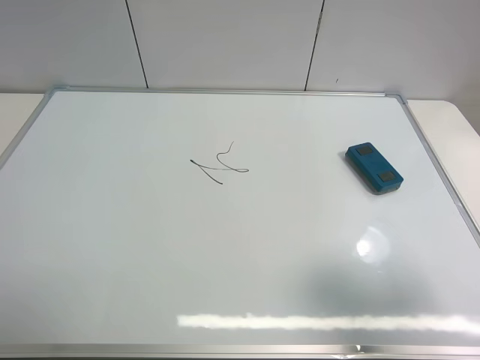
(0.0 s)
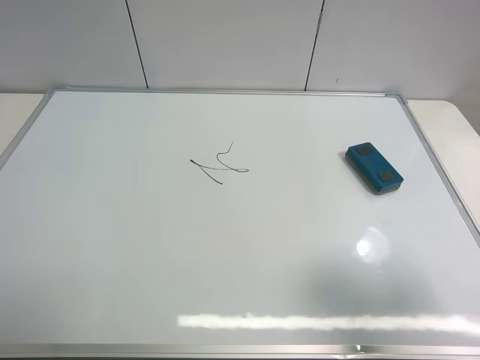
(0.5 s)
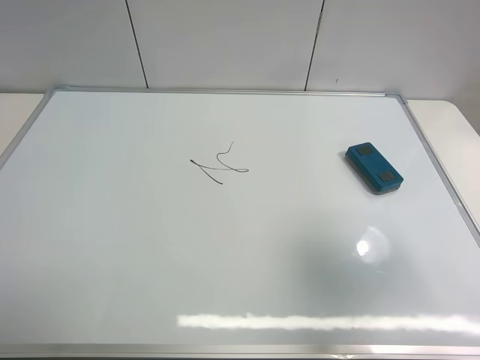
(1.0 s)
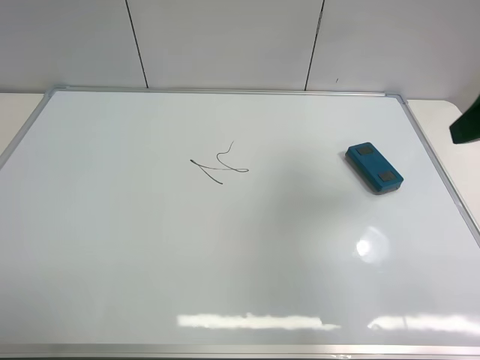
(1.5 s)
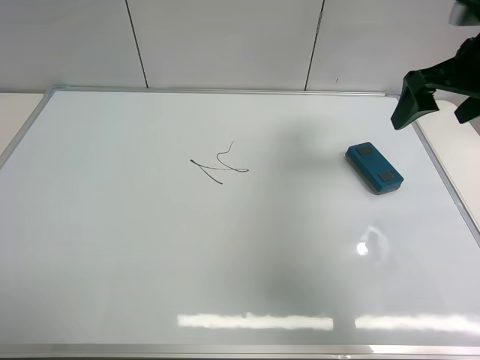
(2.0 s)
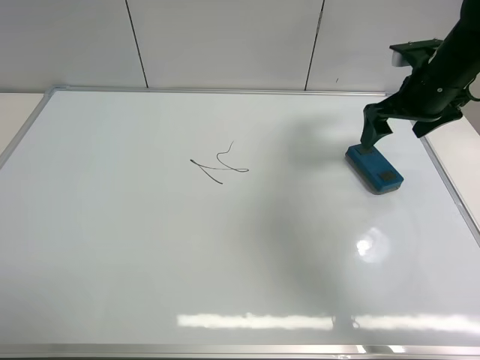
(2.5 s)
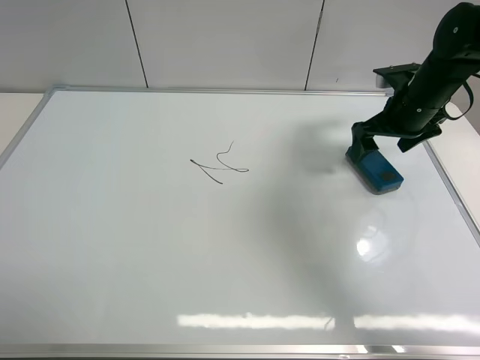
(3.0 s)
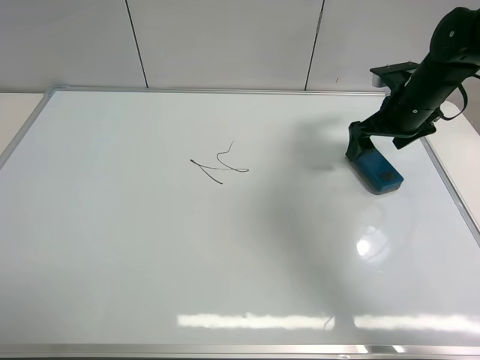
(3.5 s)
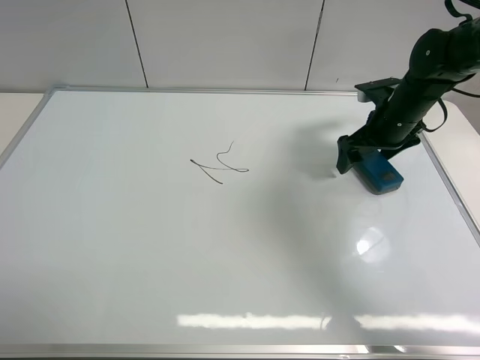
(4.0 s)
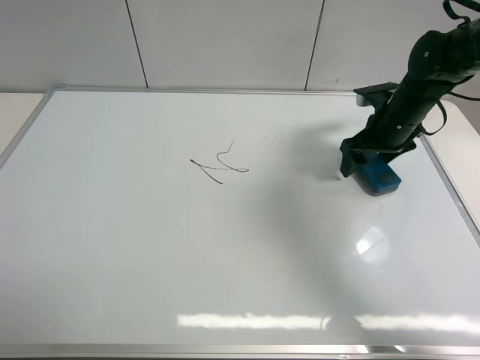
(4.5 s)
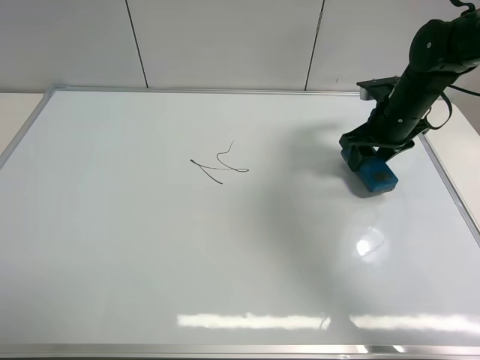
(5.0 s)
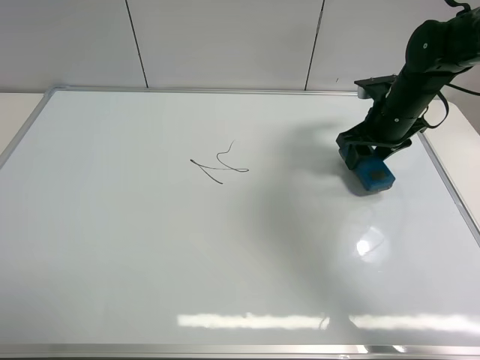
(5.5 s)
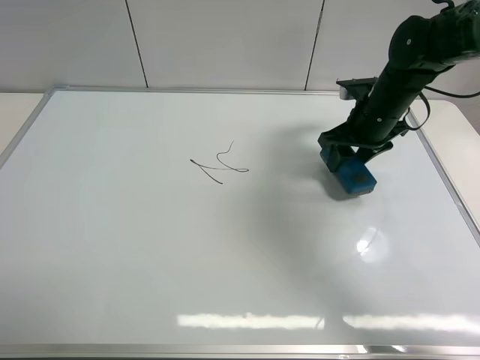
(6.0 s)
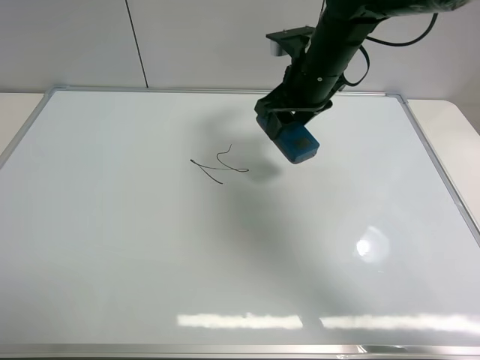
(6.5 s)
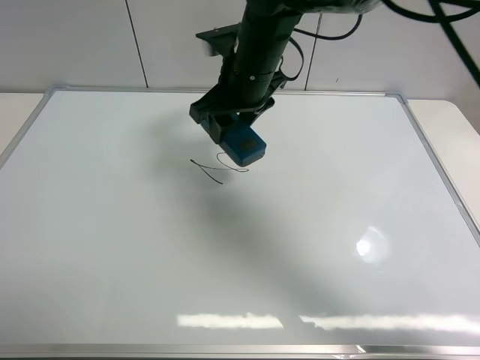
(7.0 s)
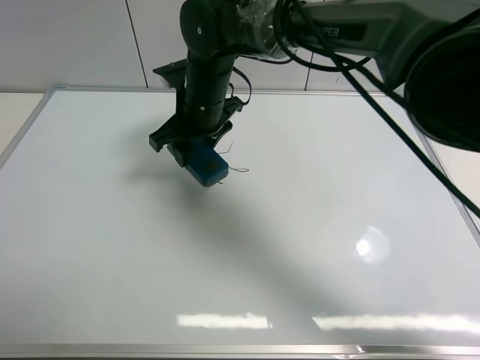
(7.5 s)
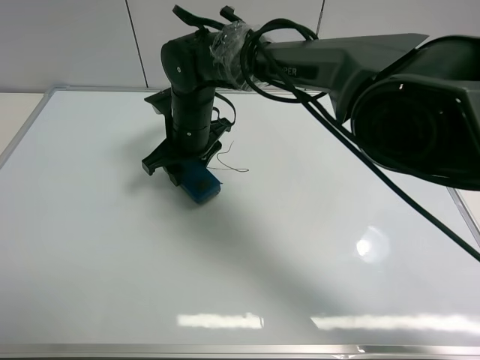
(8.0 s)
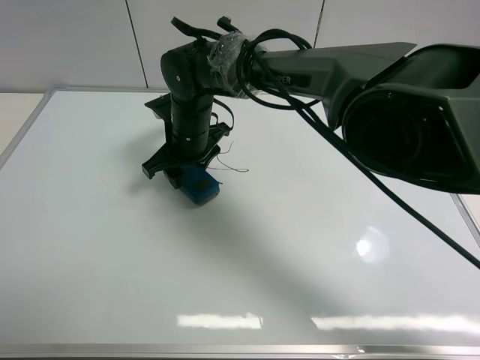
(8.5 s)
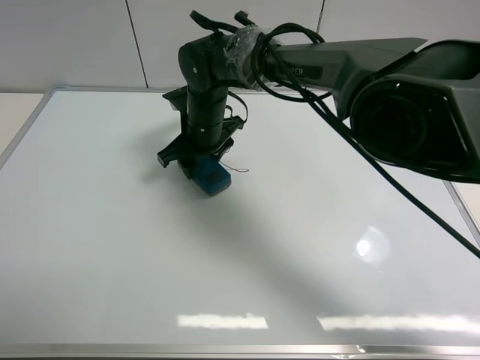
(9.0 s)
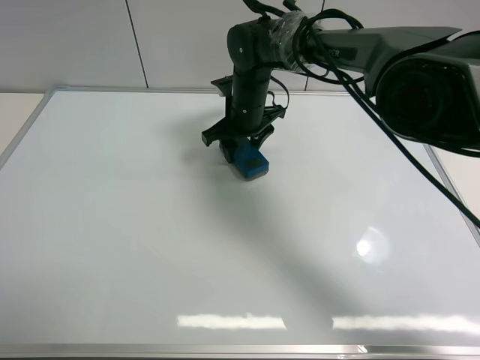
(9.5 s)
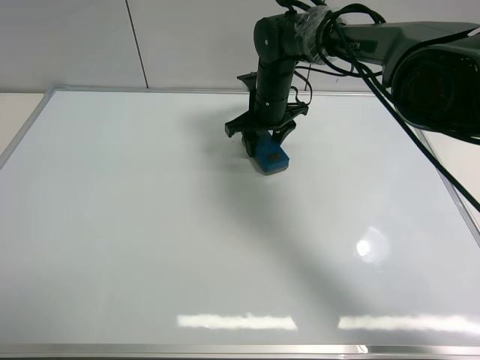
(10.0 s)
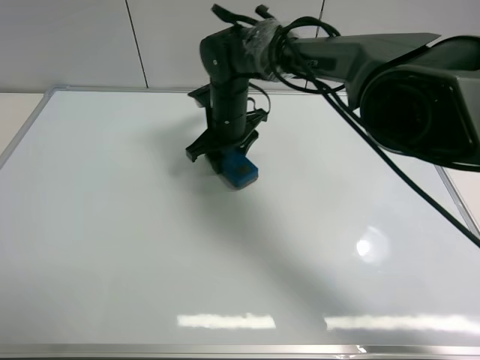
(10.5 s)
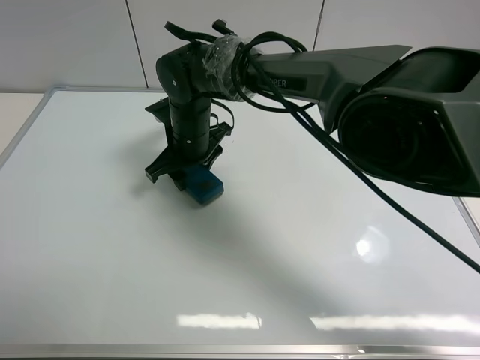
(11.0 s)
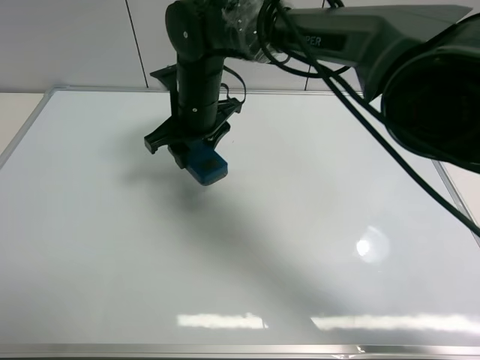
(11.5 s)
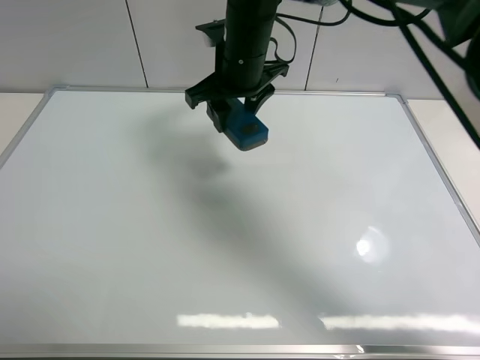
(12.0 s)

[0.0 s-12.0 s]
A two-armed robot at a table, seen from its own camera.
Task of the whole recording: use the right gripper to pick up the board eraser, wipe the notes on the whiteboard clean, and then put them back in place.
Step, 0.0 to 5.0 s: Pick up the board eraser with right gripper.
Step, 5.5 to 11.0 s: Wipe off the writing on the board with right gripper.
0.0 to 2.0 s: The right gripper moves forward, approximately 30 cm.
2.0 to 4.0 s: The right gripper shifts approximately 15 cm downward and forward.
4.0 to 6.0 s: The right gripper shifts by some 5 cm, and closes up.
6.0 to 8.0 s: The right gripper is displaced to the left by about 30 cm.
8.0 to 10.0 s: The right gripper moves to the right and forward, about 15 cm.
10.0 to 12.0 s: The right gripper moves upward, backward and to the left, about 15 cm.

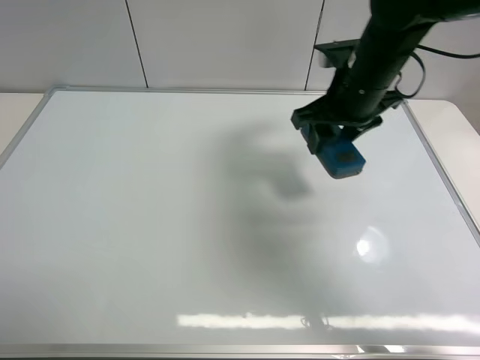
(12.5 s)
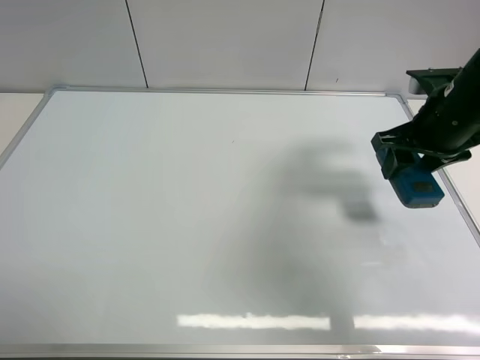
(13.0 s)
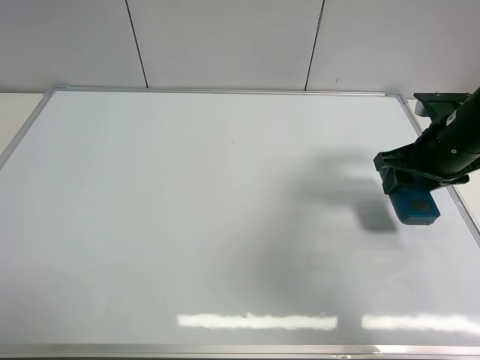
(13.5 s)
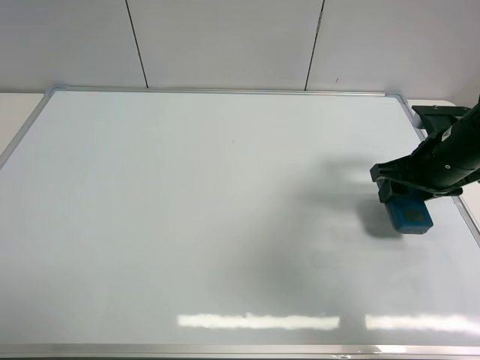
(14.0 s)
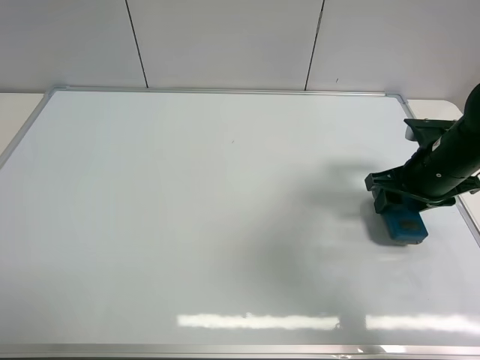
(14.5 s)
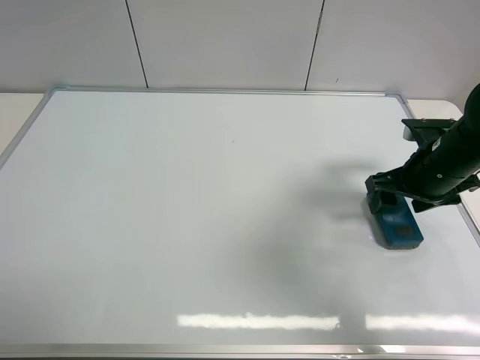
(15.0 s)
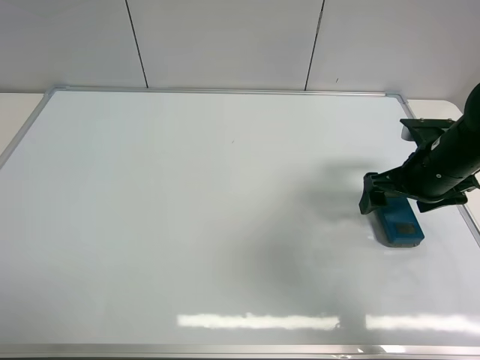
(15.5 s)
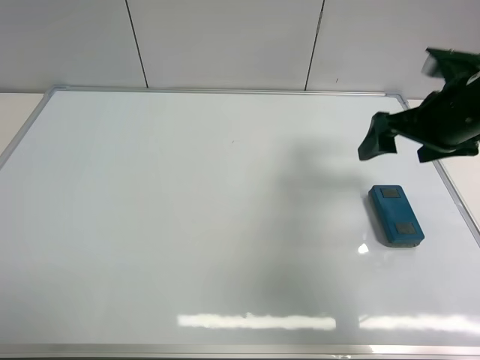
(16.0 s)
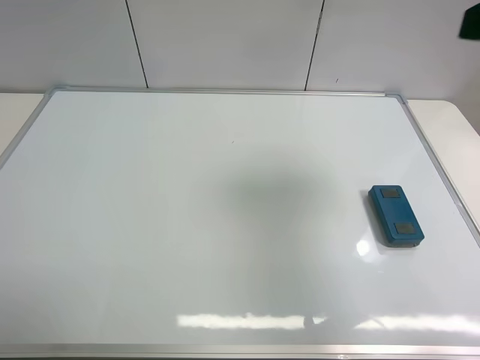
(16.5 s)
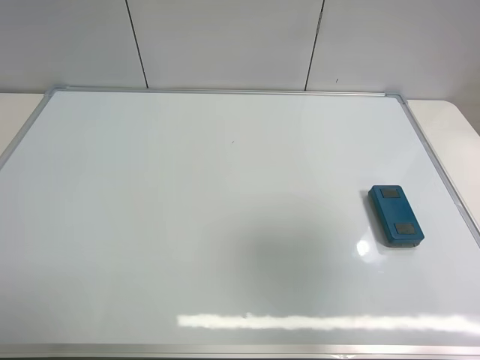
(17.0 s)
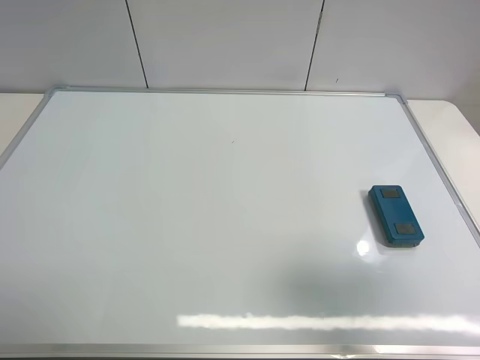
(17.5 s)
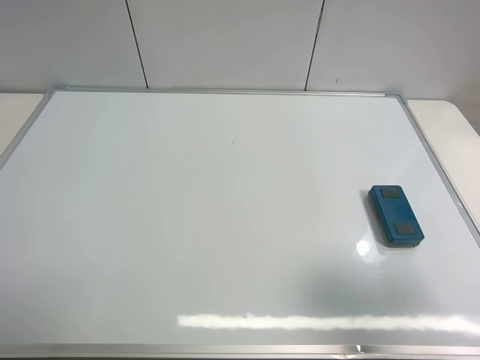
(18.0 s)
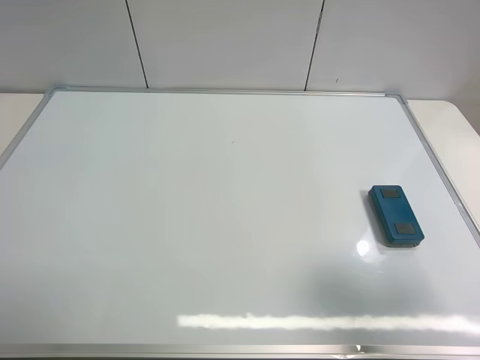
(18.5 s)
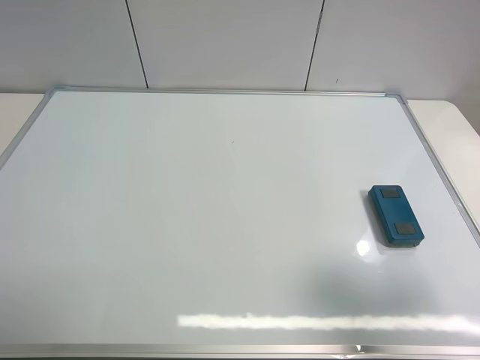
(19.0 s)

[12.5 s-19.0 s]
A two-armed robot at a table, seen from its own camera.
Task of the whole recording: use the right gripper to pick up the board eraser, wipe the notes on the whiteboard clean, and then put them back in place.
Step, 12.5 to 15.0 s: Move the board eraser to the right of the whiteboard with right gripper.
12.5 to 14.5 s: The right gripper shifts approximately 15 cm to the right, downward and backward.
14.5 to 17.0 s: The right gripper moves backward and upward, roughly 30 cm, and opens up.
17.0 to 19.0 s: The right gripper goes approximately 10 cm downward.
